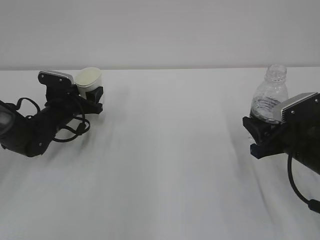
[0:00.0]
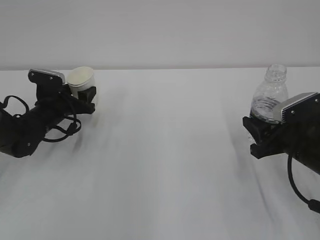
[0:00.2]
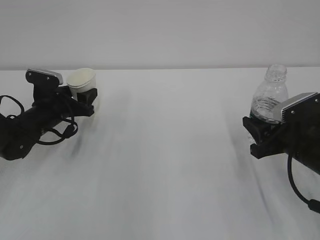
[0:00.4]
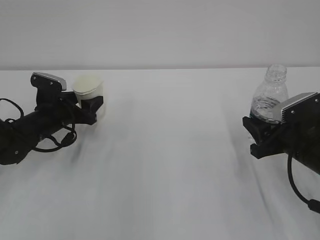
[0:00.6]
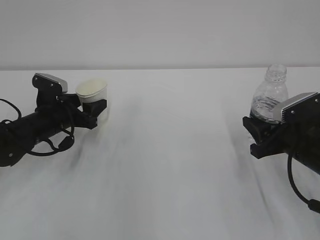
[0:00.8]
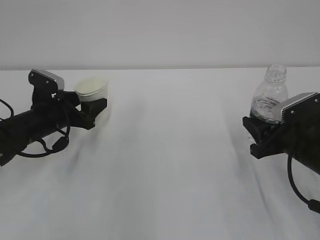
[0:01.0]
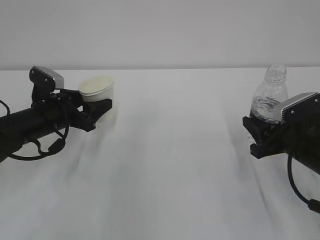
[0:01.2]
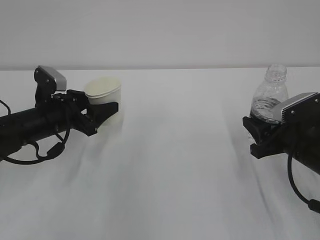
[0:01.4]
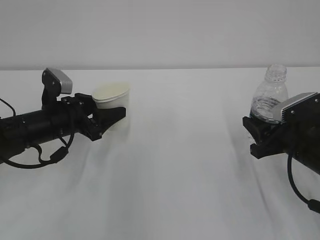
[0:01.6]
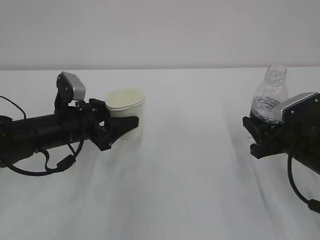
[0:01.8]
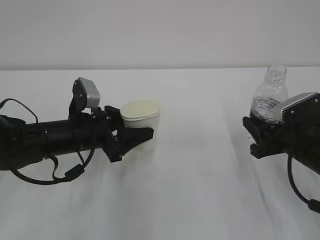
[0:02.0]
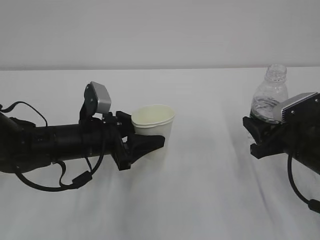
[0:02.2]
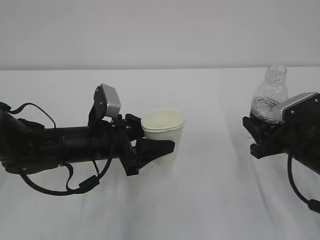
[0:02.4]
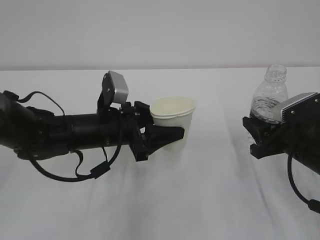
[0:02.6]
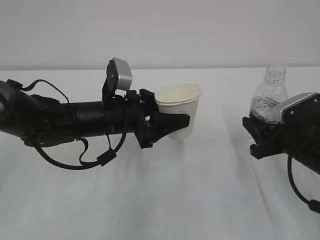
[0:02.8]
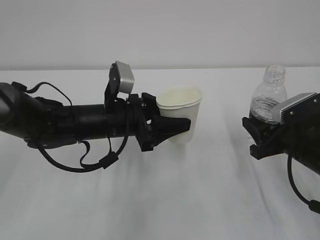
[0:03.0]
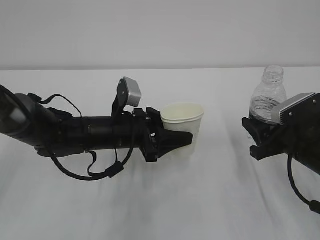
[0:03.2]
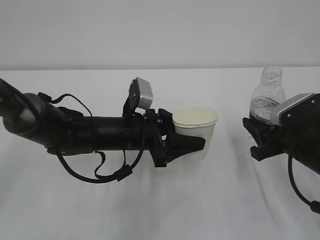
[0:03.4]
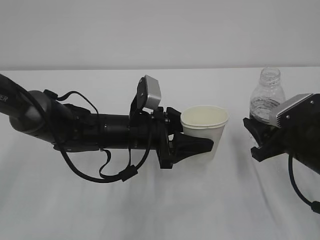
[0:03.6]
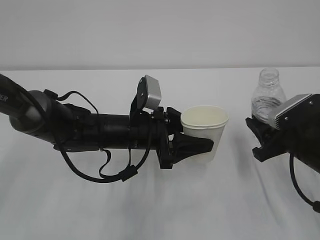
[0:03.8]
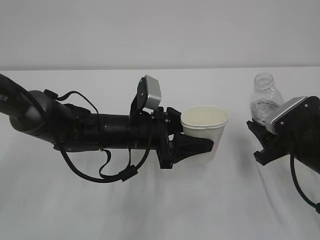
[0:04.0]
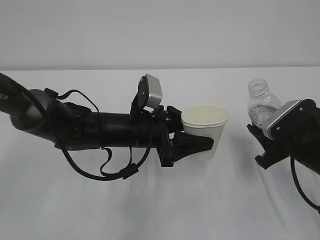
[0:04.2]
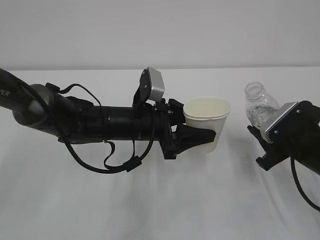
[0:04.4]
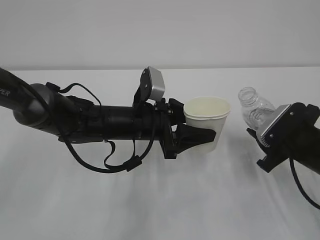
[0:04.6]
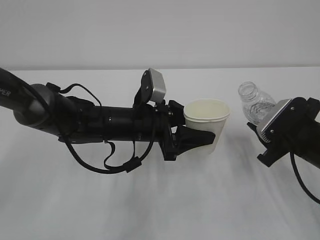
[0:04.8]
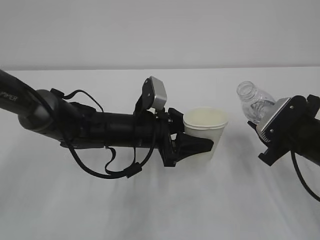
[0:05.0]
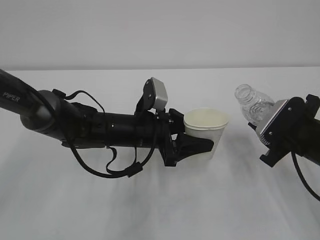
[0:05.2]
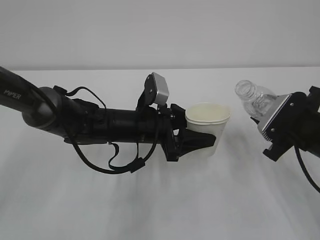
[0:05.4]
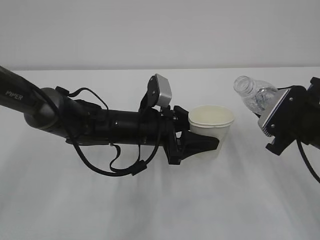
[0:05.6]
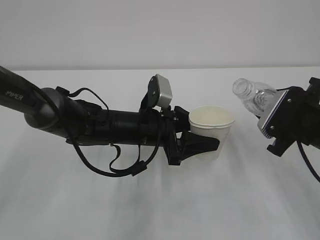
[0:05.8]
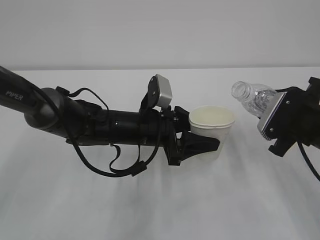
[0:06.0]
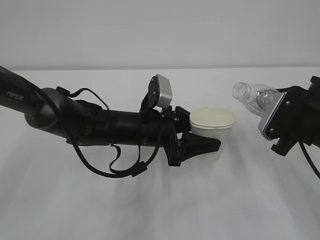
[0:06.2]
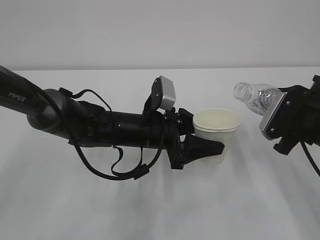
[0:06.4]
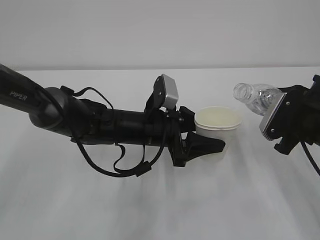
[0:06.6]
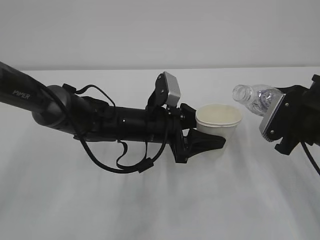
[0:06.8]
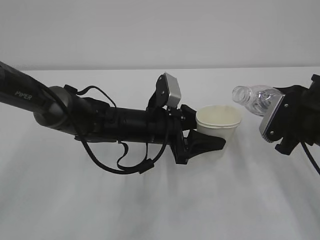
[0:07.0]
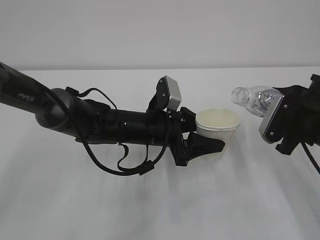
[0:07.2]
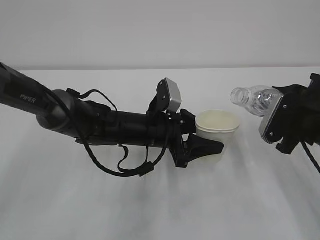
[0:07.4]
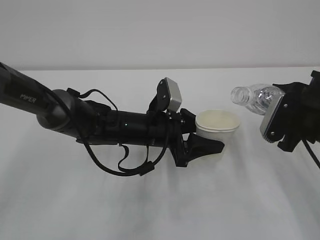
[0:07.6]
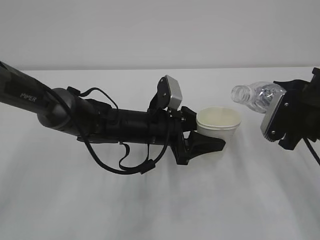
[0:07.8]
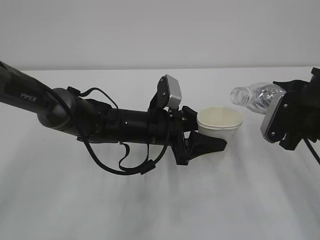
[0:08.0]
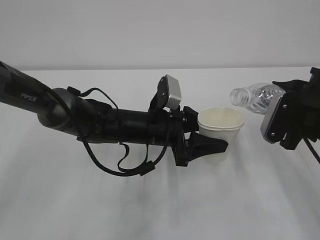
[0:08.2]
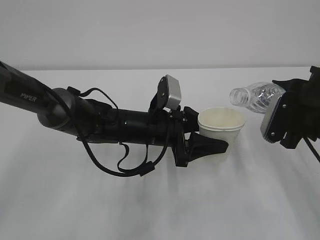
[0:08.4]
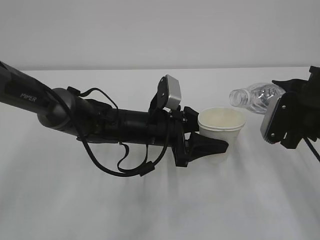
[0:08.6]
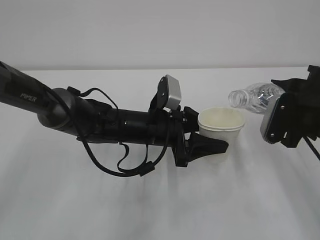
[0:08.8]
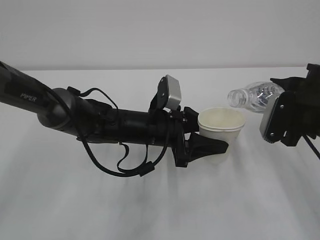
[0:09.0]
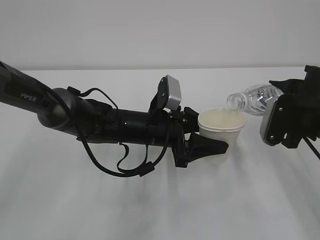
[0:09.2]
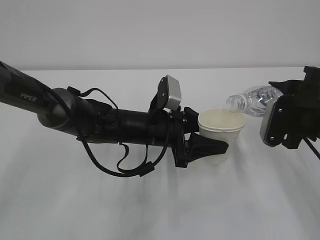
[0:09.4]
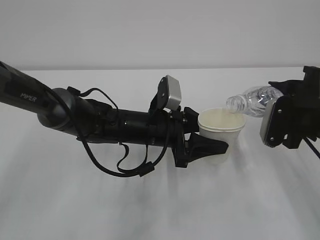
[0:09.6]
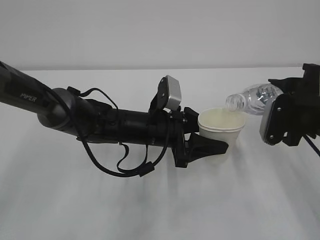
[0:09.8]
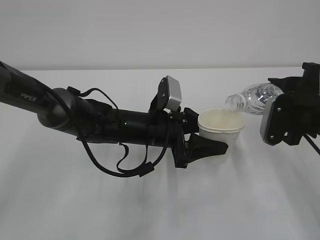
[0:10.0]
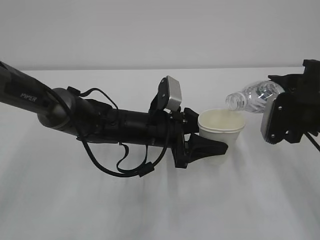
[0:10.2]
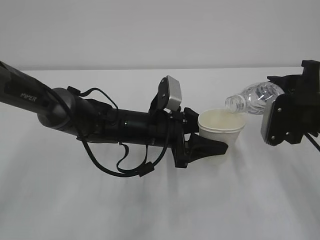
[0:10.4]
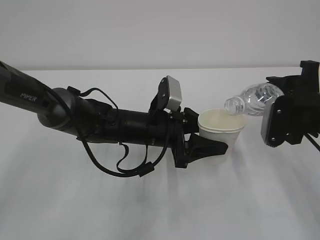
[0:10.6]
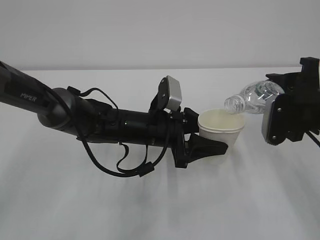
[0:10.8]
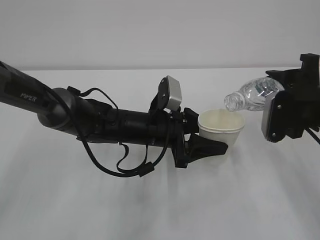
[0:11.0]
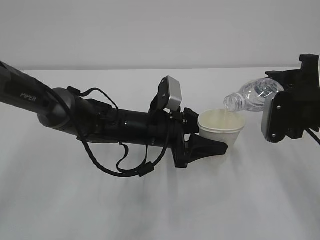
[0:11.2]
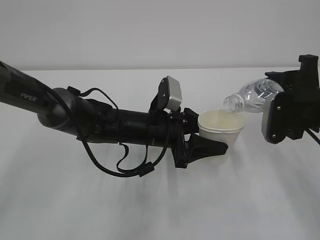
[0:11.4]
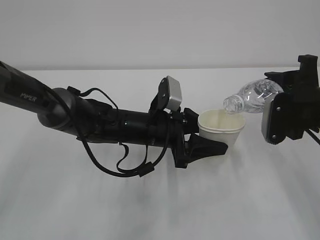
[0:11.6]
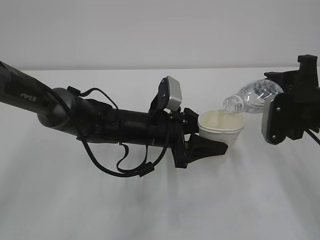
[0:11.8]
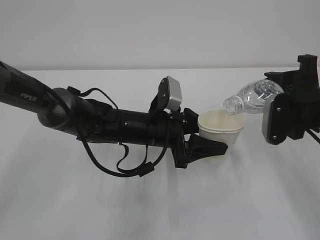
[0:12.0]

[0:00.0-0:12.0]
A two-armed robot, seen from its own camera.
0:00.0 to 0:01.6: The left gripper travels backward and upward by about 10 cm.
0:01.6 to 0:03.0: The left gripper shifts some 10 cm to the right.
0:06.0 to 0:09.0: The grippers stay close to where they were, moving slightly.
0:09.0 to 0:12.0: There are only small adjustments of the grippers.

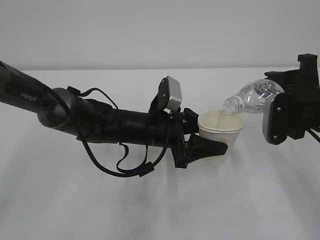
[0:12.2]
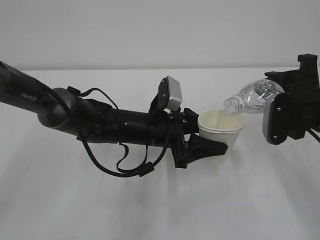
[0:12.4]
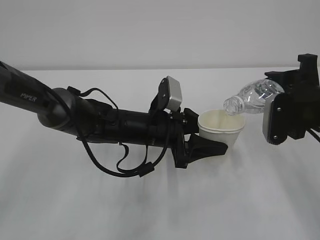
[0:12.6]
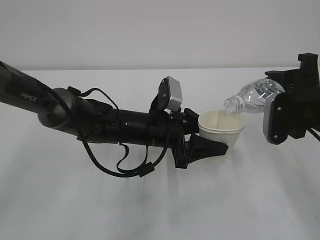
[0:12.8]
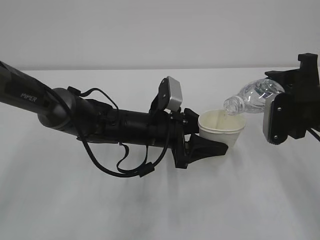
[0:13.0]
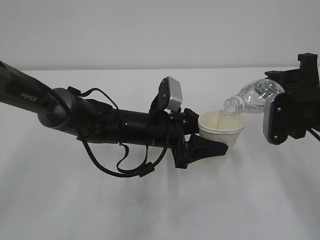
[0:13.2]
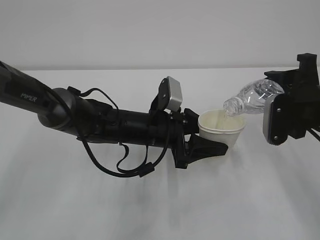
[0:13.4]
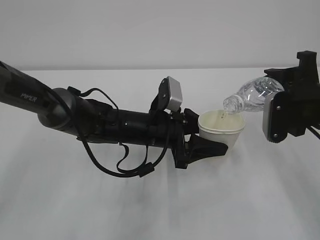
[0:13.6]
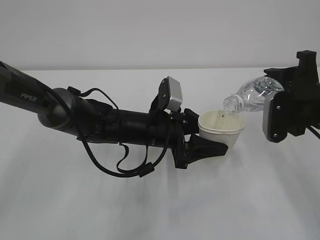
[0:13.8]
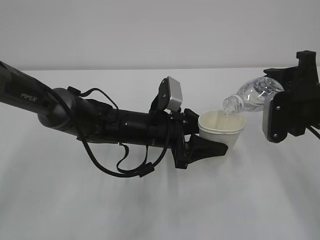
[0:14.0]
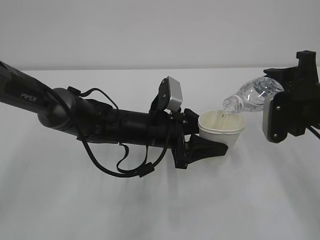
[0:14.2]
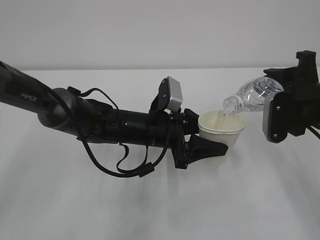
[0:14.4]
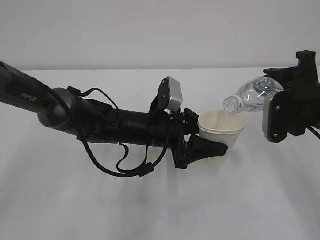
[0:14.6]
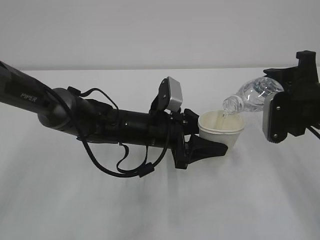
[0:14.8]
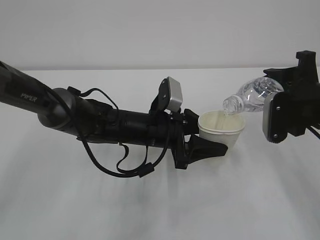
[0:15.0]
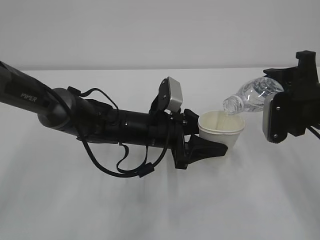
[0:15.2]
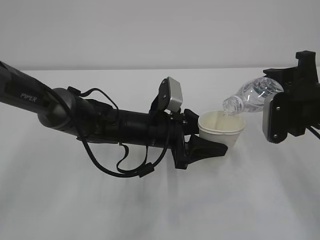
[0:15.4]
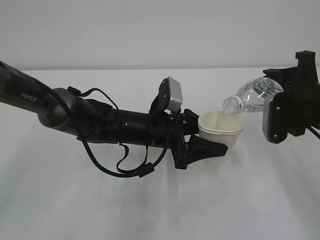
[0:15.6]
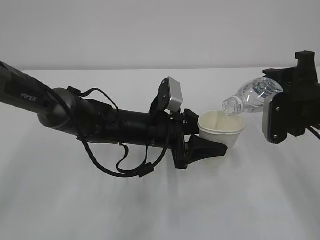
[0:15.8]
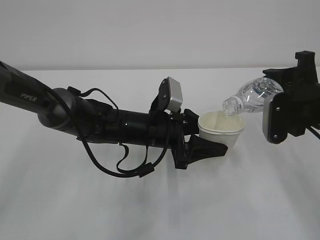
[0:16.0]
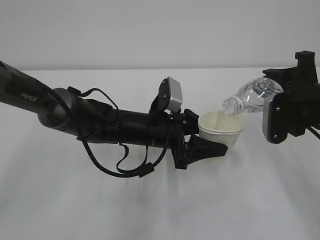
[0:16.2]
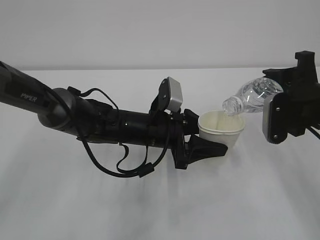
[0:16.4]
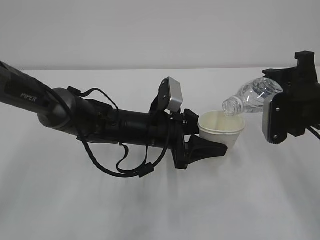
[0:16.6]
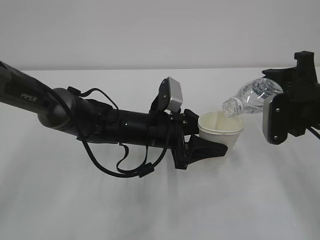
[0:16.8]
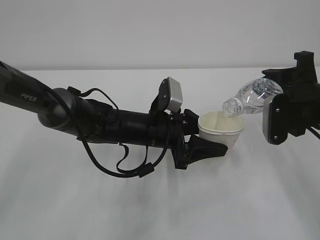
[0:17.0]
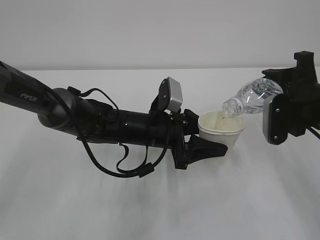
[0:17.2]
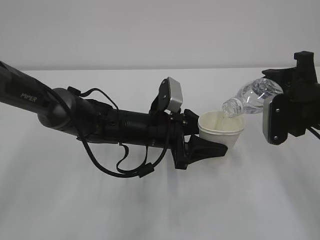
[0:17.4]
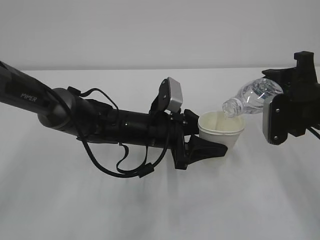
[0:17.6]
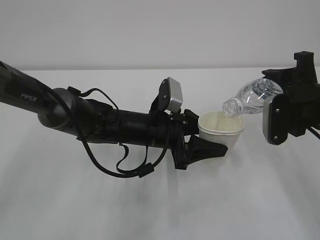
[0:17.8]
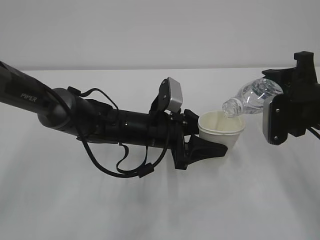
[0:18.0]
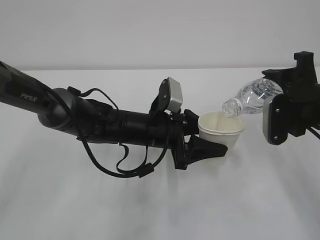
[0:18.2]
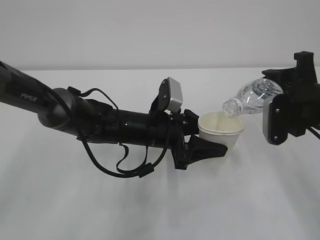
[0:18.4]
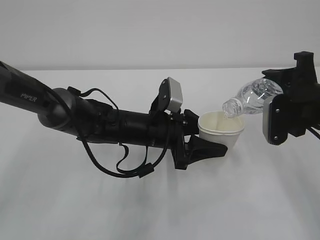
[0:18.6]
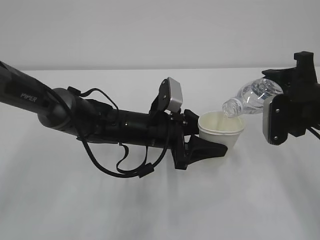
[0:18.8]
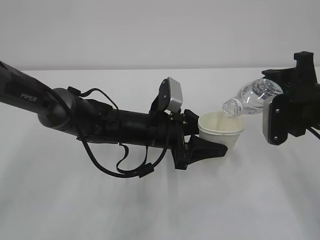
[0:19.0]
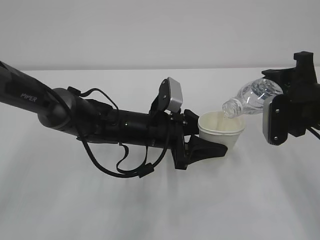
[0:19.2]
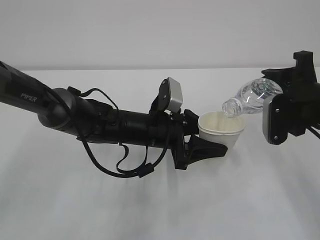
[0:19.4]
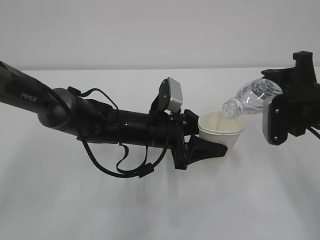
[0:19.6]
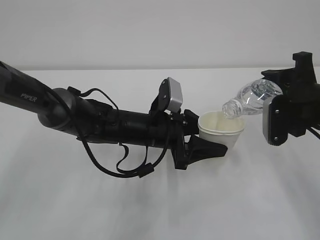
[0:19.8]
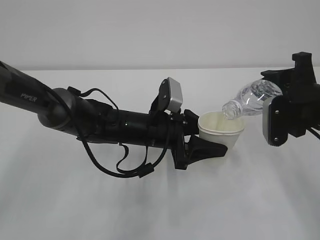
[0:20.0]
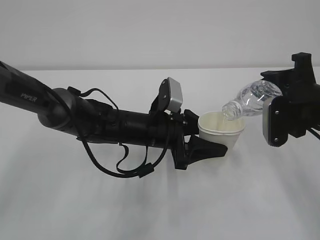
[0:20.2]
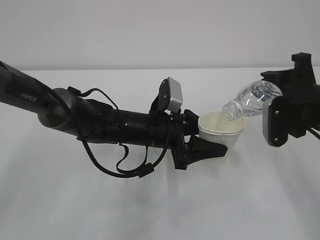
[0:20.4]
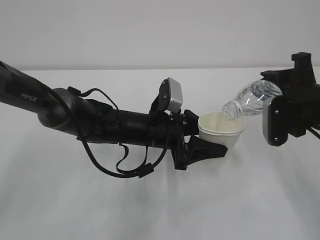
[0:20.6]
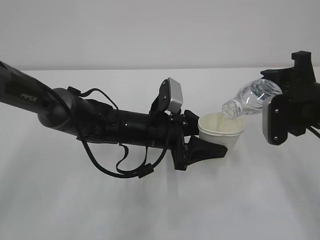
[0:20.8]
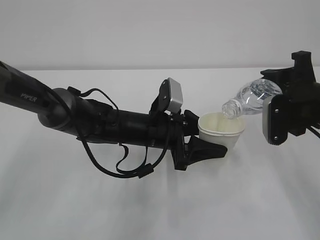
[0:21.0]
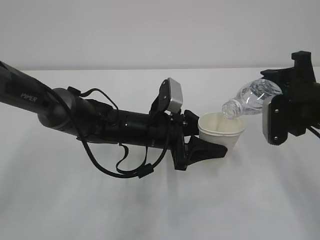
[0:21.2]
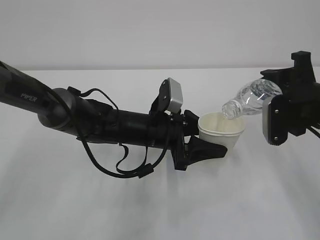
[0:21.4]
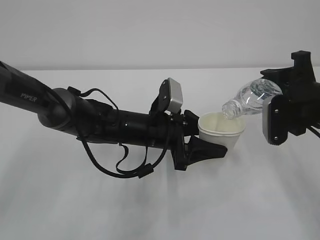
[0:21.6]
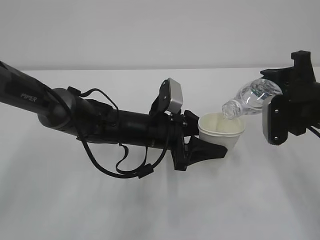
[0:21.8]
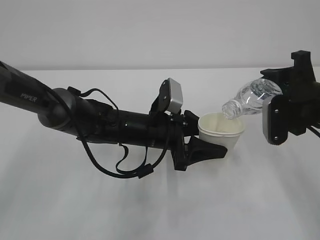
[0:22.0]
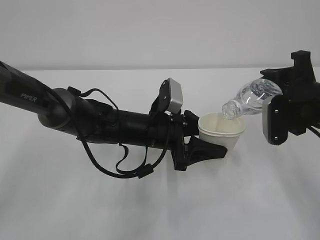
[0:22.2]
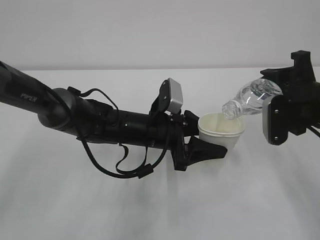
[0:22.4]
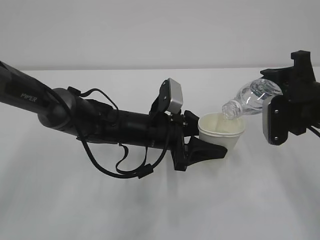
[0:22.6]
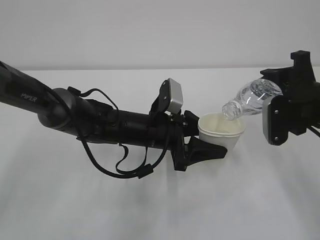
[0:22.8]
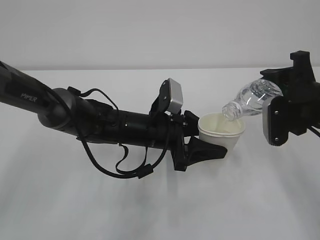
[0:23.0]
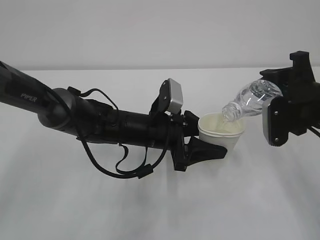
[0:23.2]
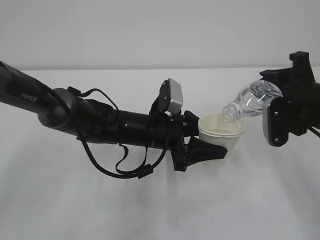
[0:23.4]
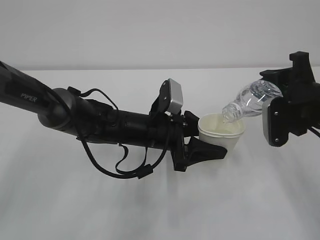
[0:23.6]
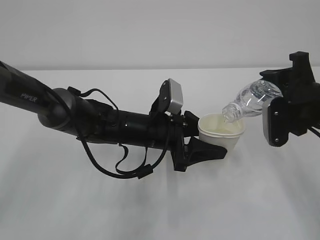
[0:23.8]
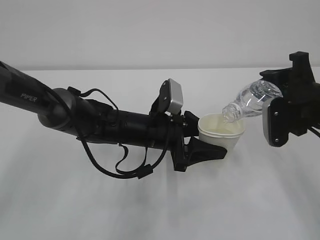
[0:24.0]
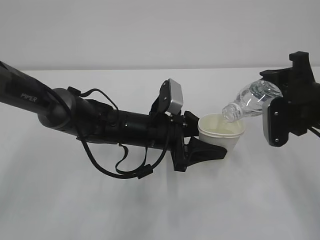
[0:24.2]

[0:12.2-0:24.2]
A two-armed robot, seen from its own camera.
0:12.2 to 0:18.2: Both grippers stay about where they are.
0:18.2 to 0:24.2: Neither gripper changes place.
